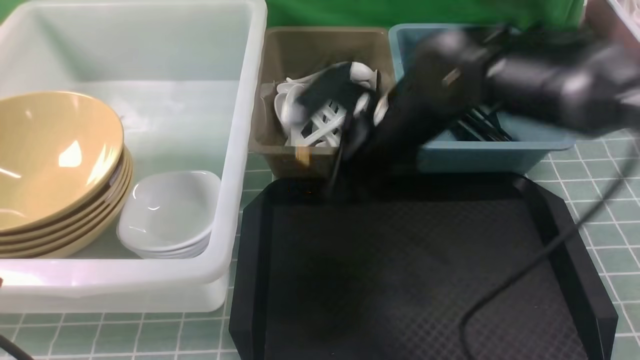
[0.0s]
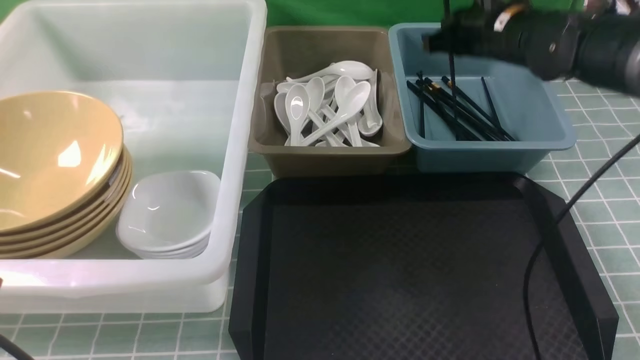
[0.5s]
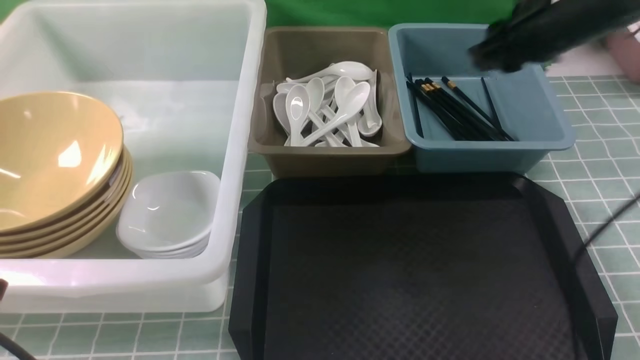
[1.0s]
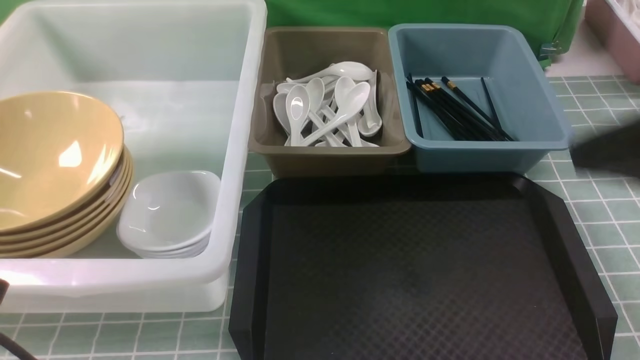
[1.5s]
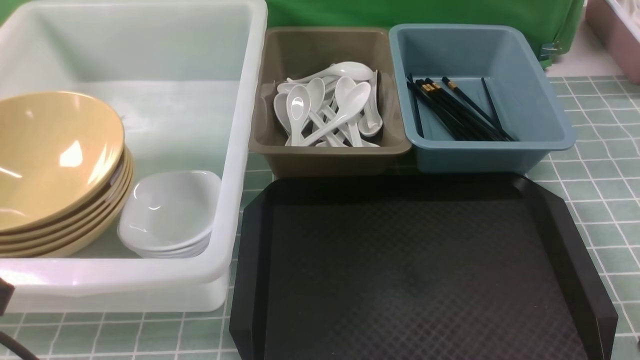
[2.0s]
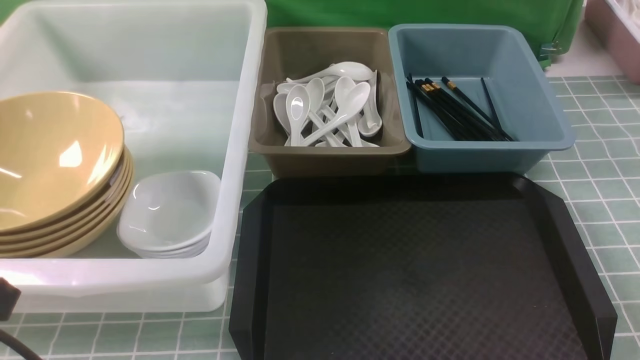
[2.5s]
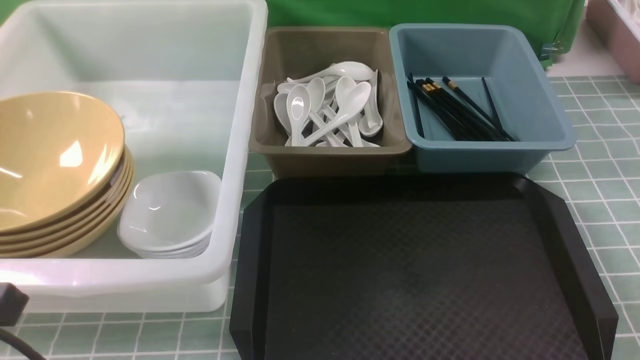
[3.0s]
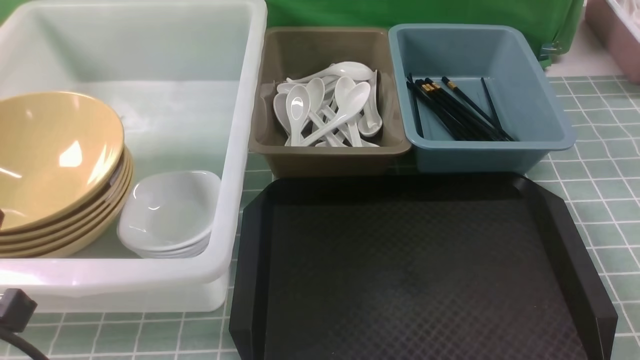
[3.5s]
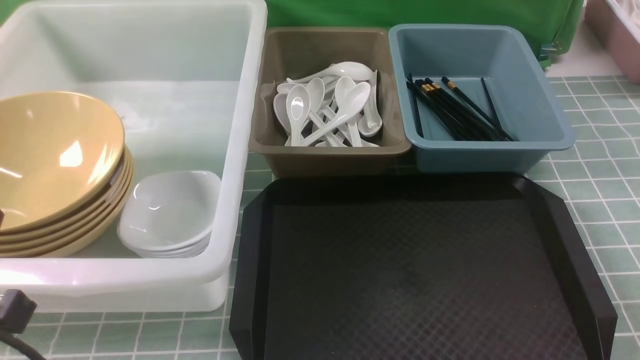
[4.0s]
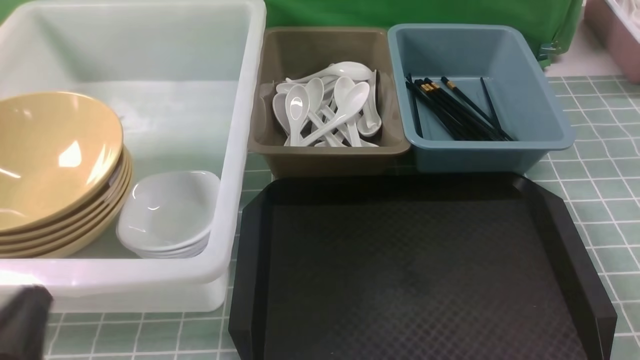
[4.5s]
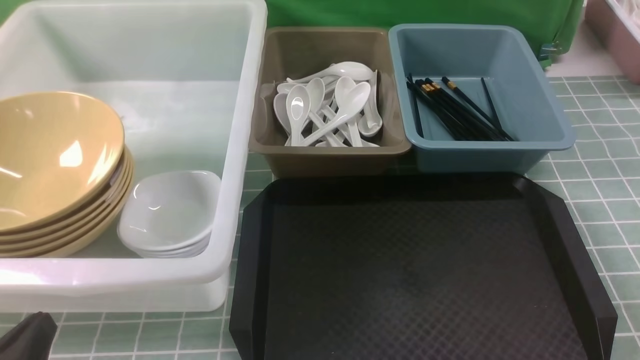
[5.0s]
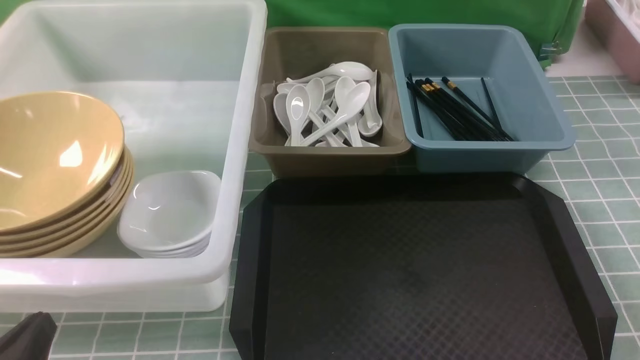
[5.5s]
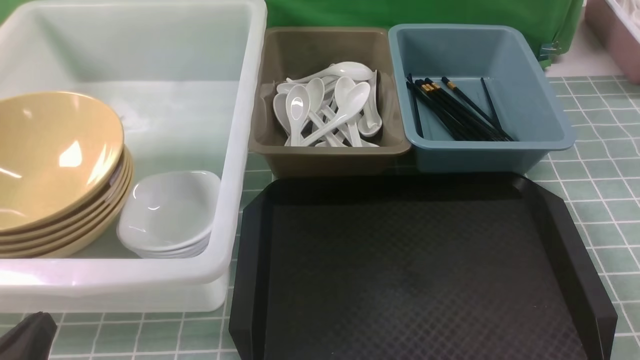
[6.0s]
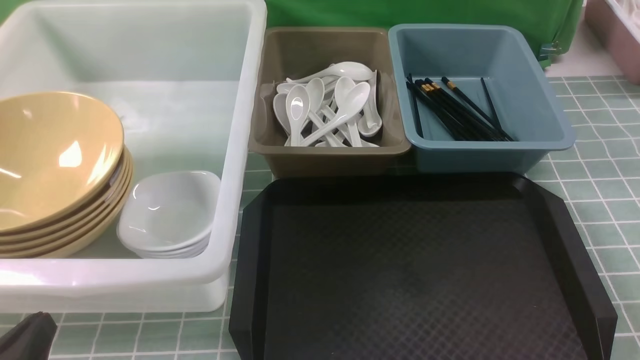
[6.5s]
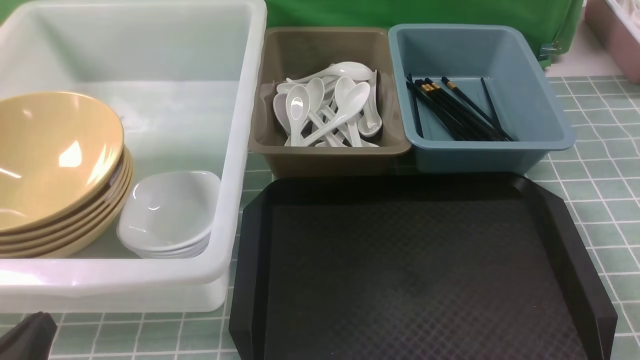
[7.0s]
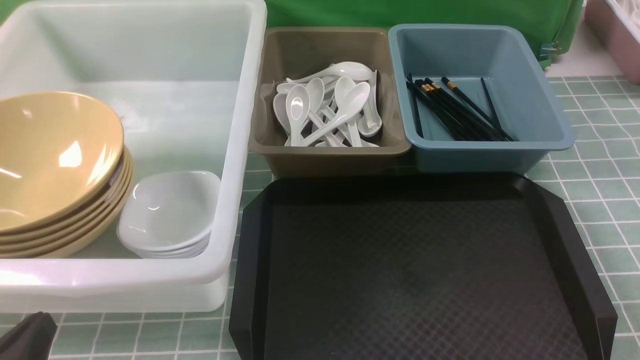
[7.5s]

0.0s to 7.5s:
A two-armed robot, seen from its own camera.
Task of the whole recording: on blue table put chopsticks spoon bowls plates into blue grey white boxes.
0.0s to 2.0s: The right gripper goes approximately 35 cm backward and to the right, and opens, then closes once more.
4.0s to 5.5s: The left gripper goes about 10 cm downward.
5.5s to 7.5s: Neither gripper changes place.
